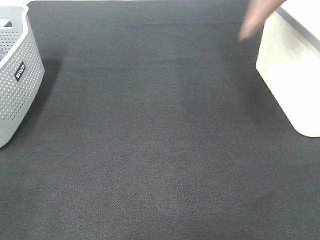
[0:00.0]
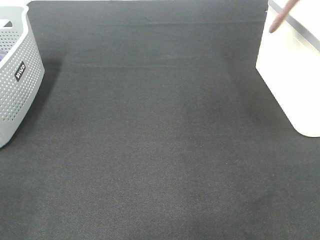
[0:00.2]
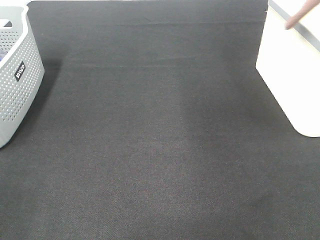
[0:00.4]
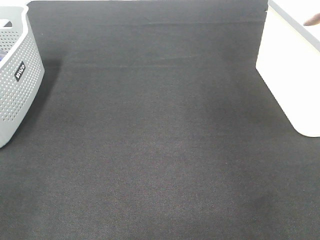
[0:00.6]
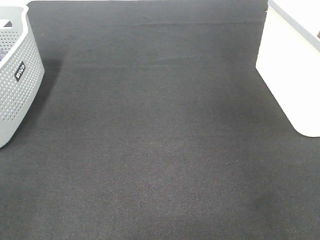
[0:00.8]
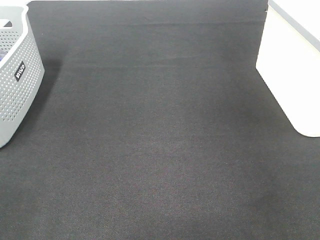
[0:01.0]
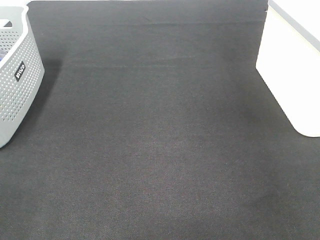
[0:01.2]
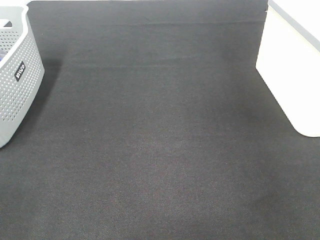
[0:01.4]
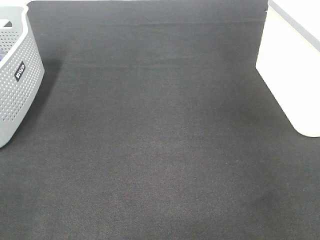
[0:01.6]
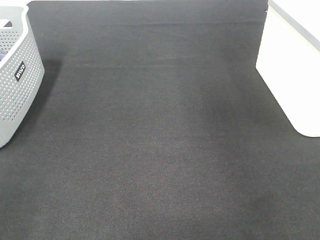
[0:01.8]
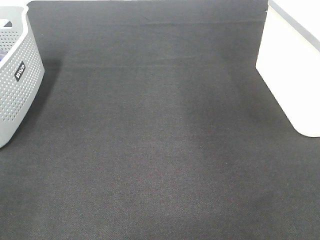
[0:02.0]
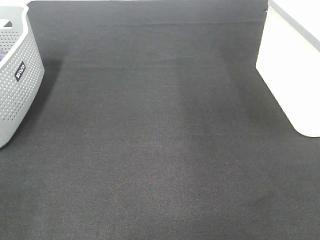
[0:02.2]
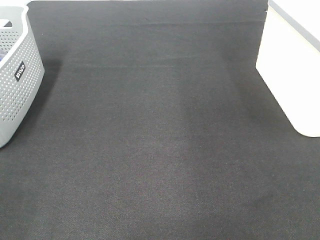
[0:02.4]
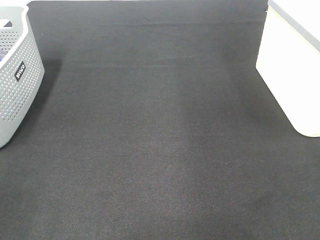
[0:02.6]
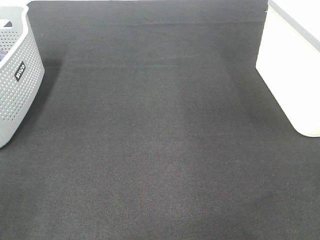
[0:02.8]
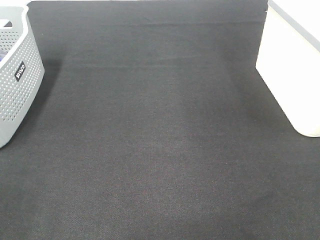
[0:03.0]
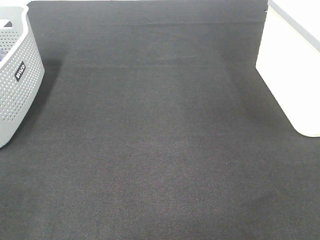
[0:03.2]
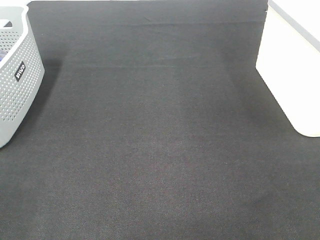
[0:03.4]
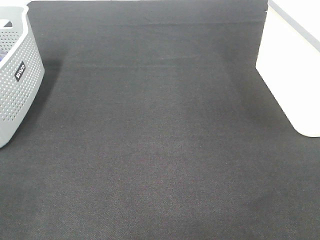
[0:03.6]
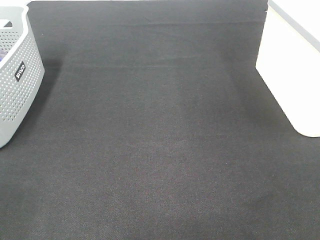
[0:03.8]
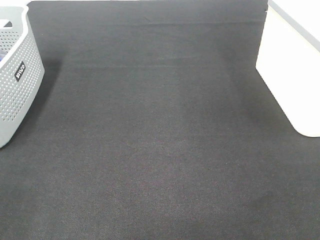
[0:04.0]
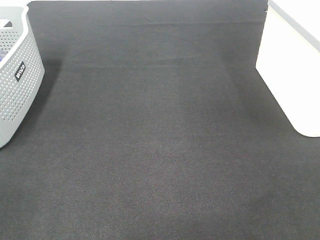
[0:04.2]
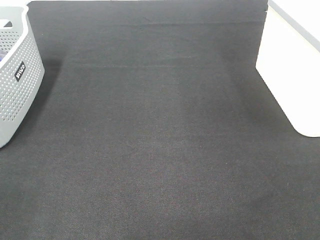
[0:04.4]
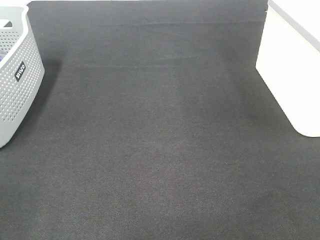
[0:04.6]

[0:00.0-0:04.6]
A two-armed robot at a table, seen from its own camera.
0:00.0 to 0:01.6: The right gripper travels to the right and downward by approximately 15 cm, and opens up.

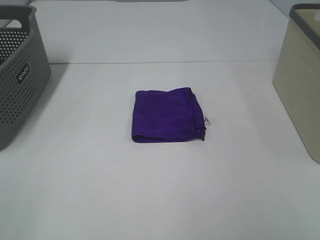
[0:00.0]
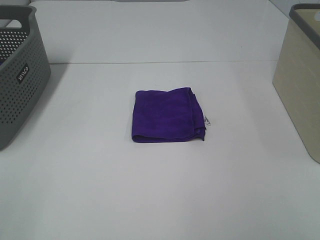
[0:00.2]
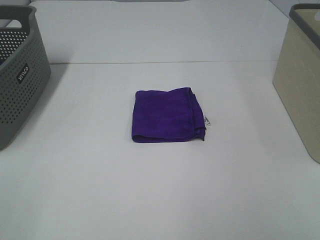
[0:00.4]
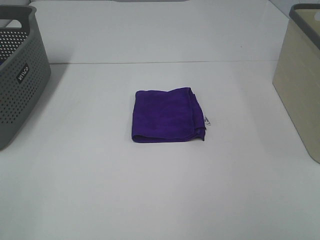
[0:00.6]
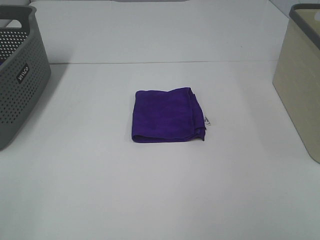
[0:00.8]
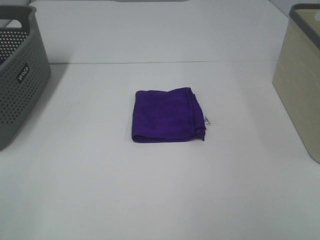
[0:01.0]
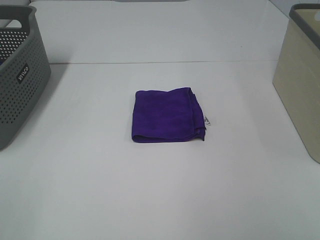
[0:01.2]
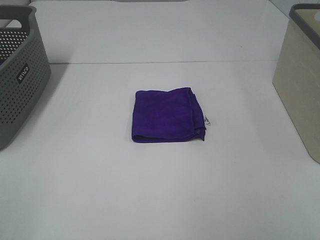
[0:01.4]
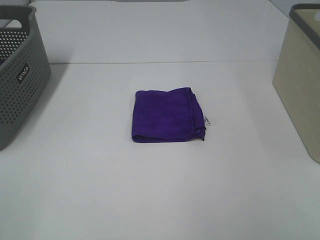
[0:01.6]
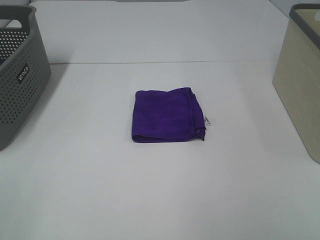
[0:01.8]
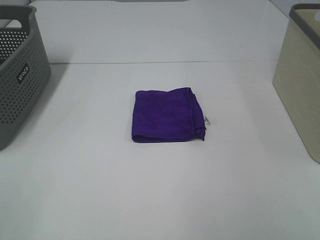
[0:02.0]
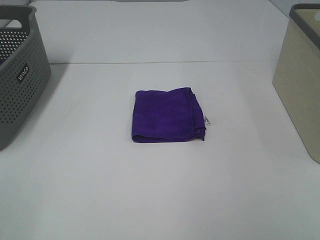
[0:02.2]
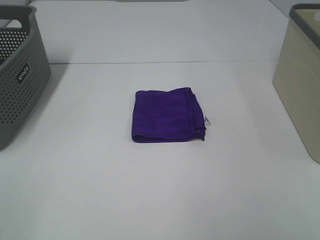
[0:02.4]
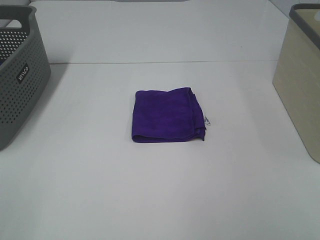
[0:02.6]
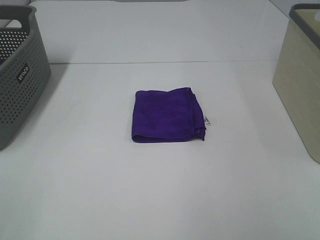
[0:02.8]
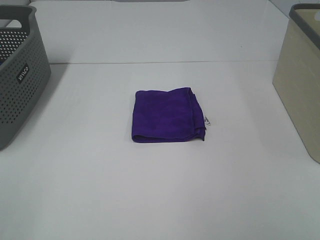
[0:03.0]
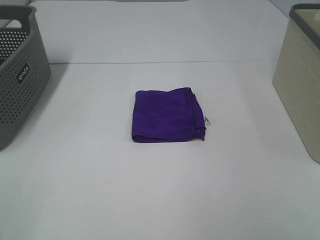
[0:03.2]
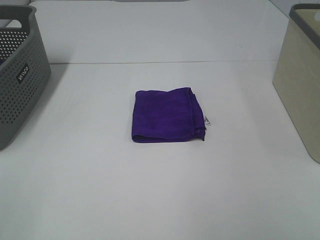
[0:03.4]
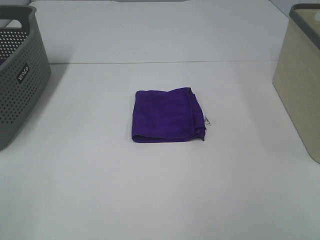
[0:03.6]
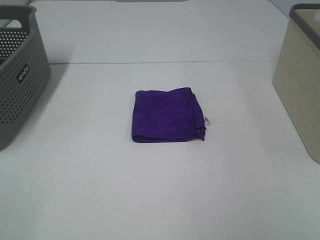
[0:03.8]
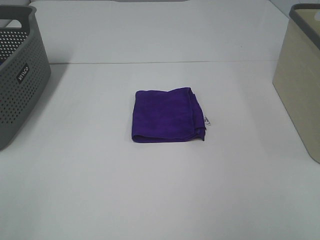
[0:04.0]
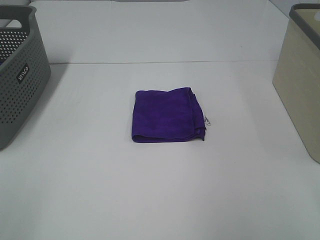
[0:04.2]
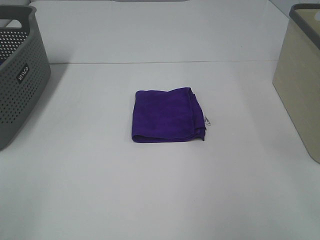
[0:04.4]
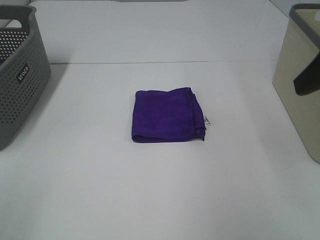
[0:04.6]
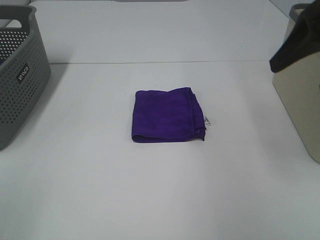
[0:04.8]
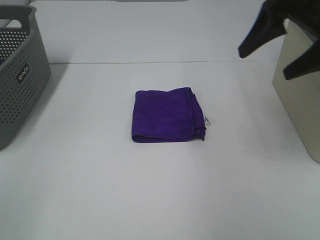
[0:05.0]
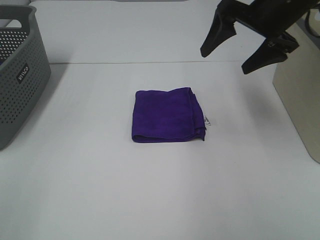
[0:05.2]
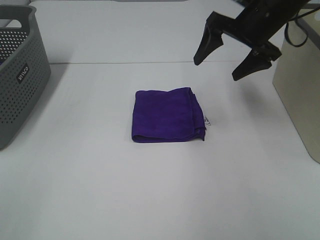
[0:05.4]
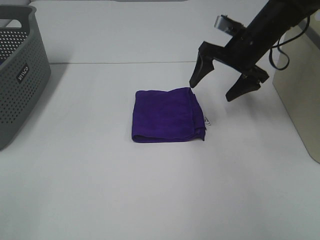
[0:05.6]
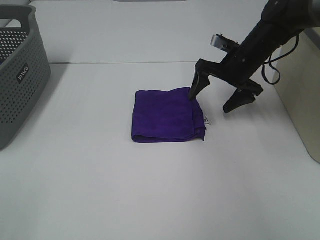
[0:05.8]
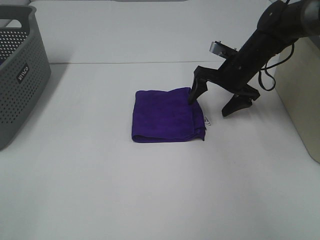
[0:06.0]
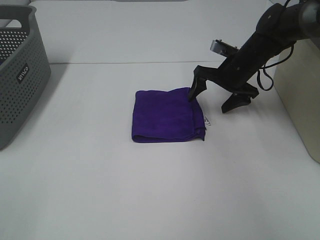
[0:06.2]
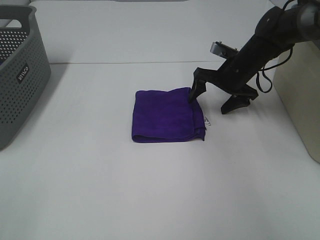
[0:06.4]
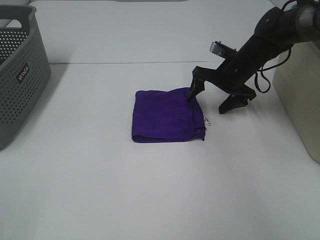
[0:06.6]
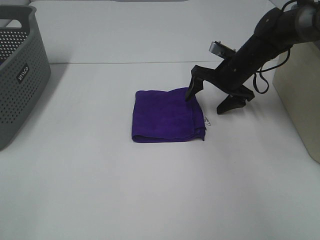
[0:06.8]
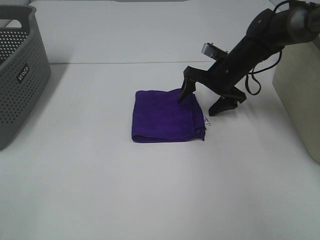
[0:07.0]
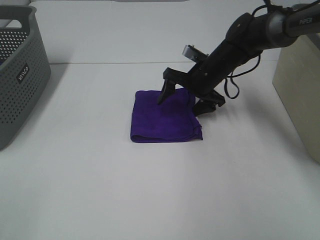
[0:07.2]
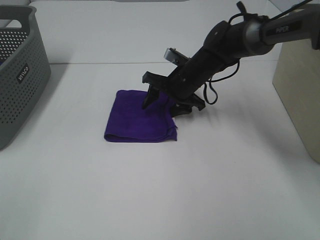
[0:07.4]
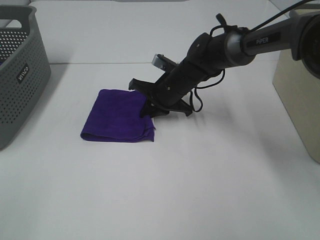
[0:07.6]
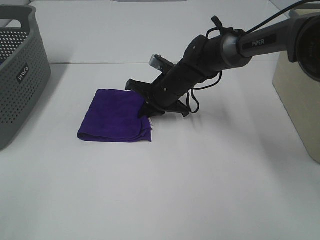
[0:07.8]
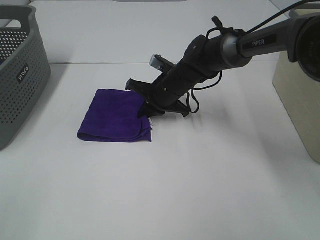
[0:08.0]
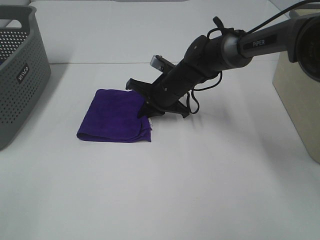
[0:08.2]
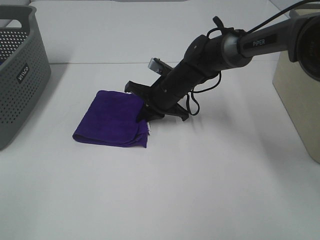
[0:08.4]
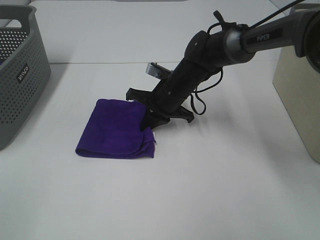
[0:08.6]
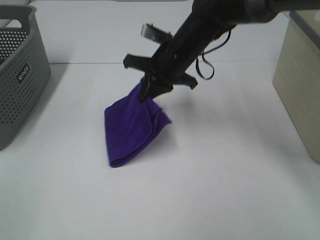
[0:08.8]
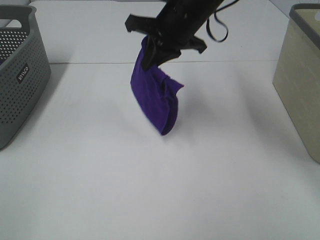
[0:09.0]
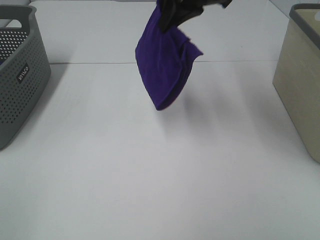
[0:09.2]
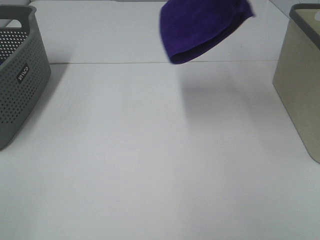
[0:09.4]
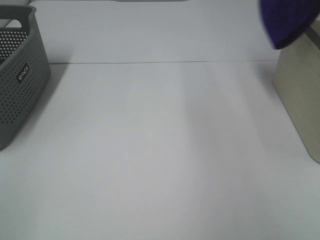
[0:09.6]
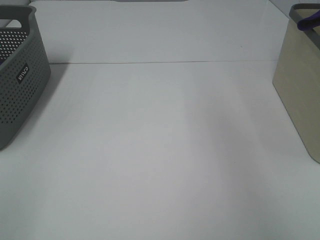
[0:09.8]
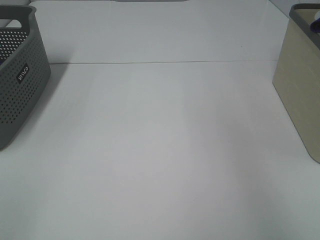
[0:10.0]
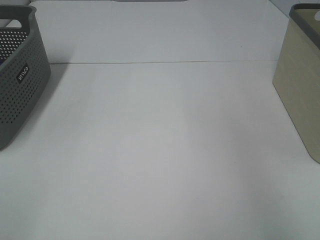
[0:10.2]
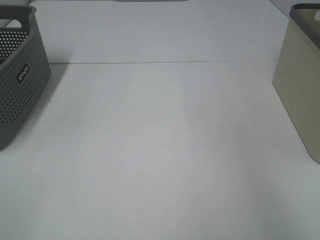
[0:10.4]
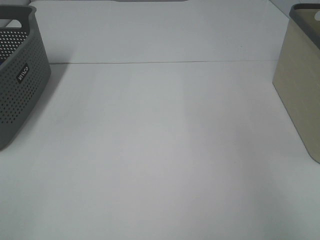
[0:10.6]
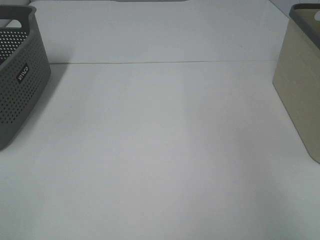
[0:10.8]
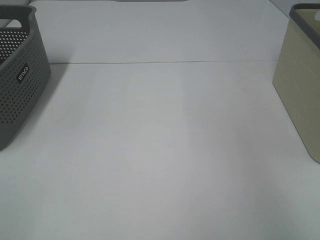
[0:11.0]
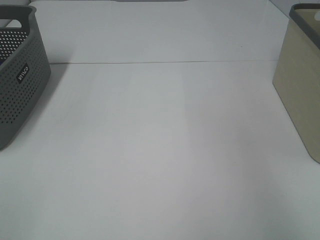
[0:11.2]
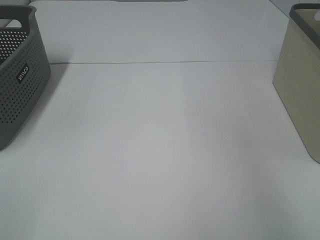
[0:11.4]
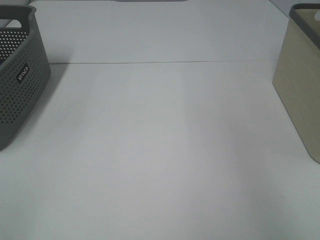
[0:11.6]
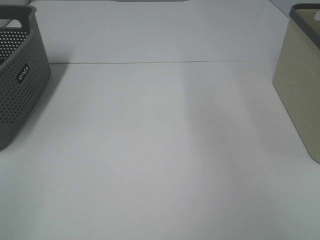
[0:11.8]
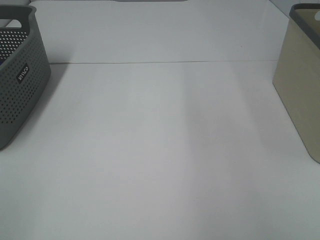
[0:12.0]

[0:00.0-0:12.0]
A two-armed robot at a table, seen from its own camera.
Step, 0:00.0 to 0:07.6: Right hand: grab the folded purple towel.
Step, 0:07.8 to 0:11.0: Right hand: place the purple towel in right basket.
0:00.0 to 0:03.0: Both grippers stay put.
0:04.4 to 0:06.0: The right gripper moves forward and downward, approximately 35 cm.
0:06.0 to 0:07.6: The right gripper heads to the left, covering some 15 cm, and closes.
0:07.6 to 0:09.0: The right gripper is displaced upward by approximately 20 cm.
0:09.0 to 0:10.4: The right gripper is displaced to the right by roughly 35 cm.

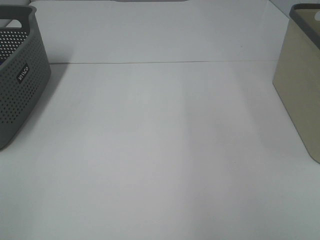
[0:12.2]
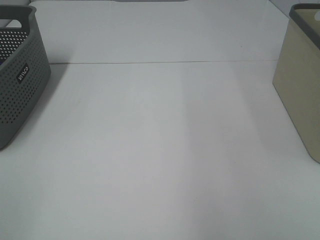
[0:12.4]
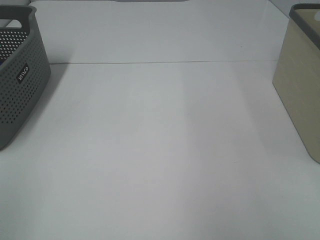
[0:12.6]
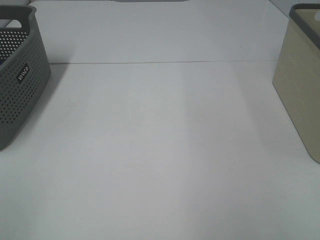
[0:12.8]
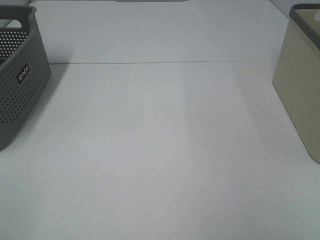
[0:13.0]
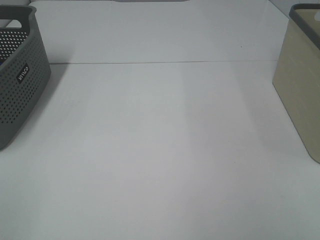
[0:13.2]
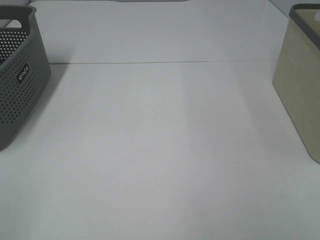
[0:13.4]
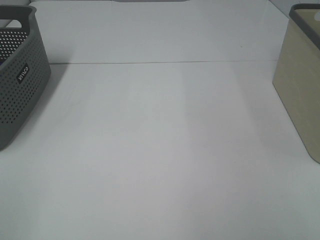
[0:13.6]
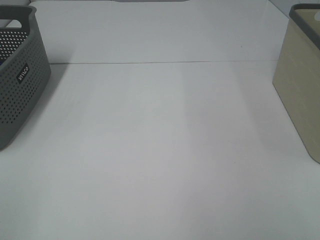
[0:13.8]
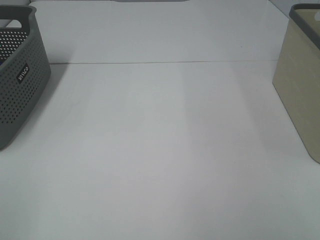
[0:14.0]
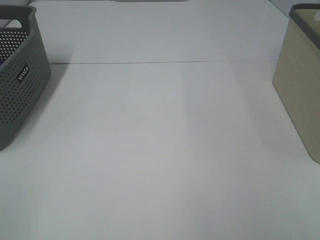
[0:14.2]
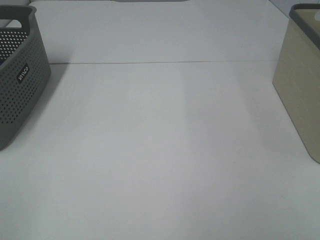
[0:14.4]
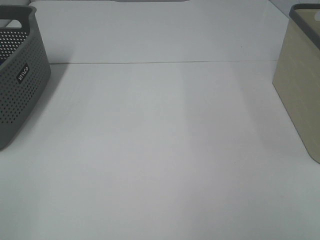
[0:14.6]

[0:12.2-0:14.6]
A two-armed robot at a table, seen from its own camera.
0:13.4 to 0:14.6: Both grippers stay put.

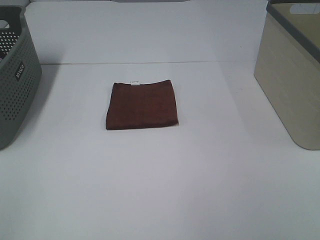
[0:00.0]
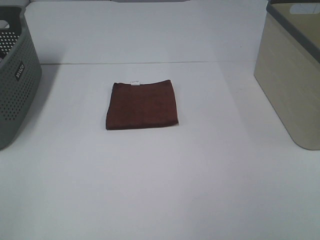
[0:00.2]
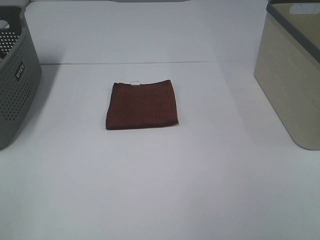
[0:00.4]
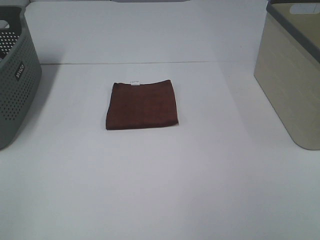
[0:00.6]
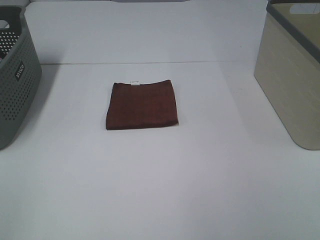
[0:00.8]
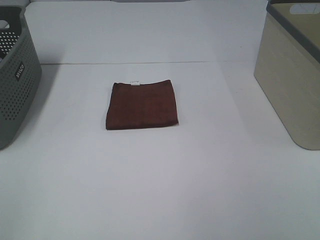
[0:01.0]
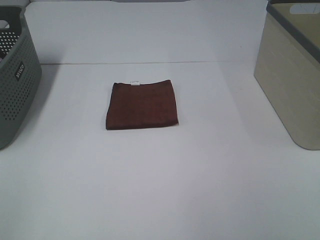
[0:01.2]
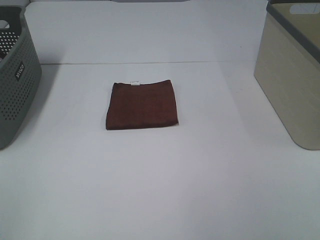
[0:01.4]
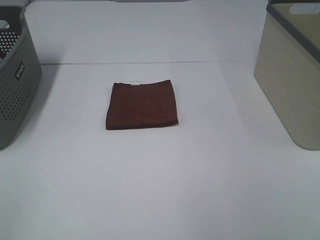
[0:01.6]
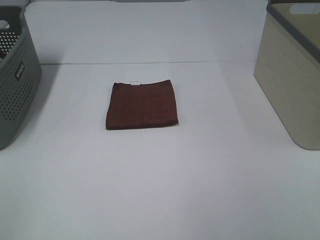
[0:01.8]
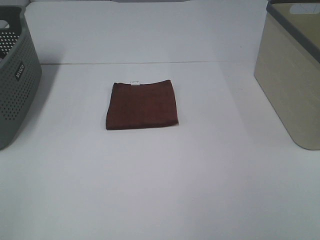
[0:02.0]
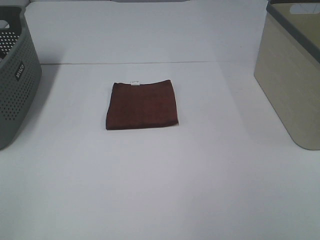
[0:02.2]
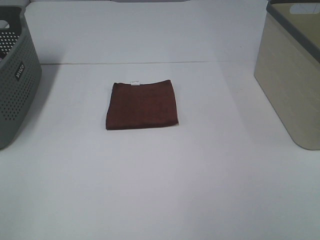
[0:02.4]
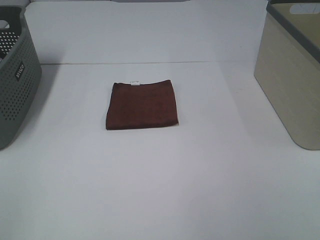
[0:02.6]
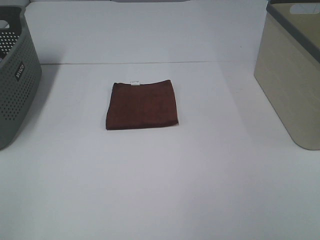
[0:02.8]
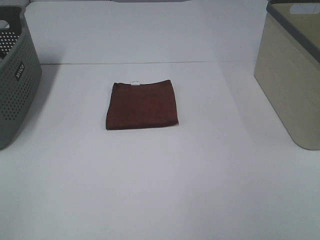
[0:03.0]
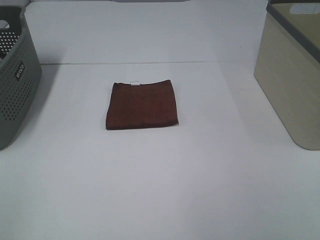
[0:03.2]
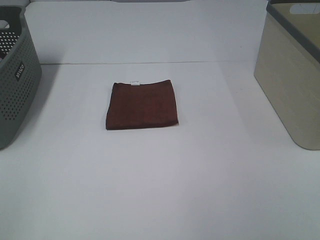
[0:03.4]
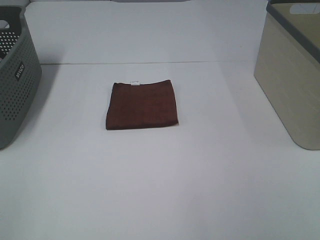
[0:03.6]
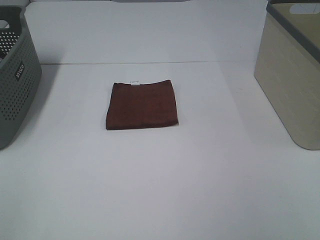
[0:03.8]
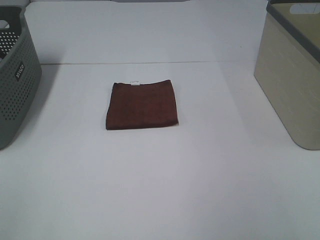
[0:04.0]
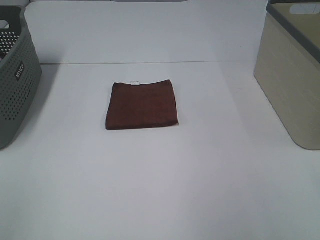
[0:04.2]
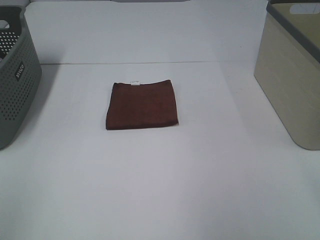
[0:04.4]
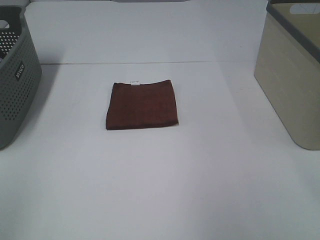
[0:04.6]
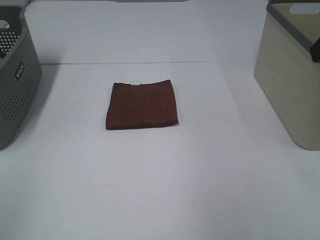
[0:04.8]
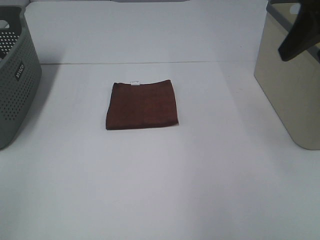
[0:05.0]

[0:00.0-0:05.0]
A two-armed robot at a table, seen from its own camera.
0:00.0 to 0:03.4: The two grippers keep their place.
0:03.4 to 0:05.0: The right gripper heads forward, covering roughly 25 cm.
